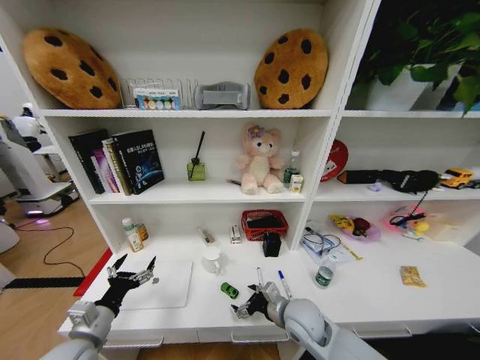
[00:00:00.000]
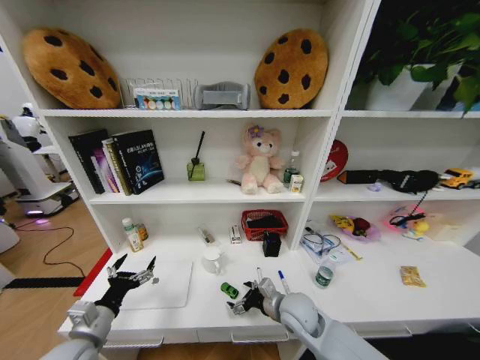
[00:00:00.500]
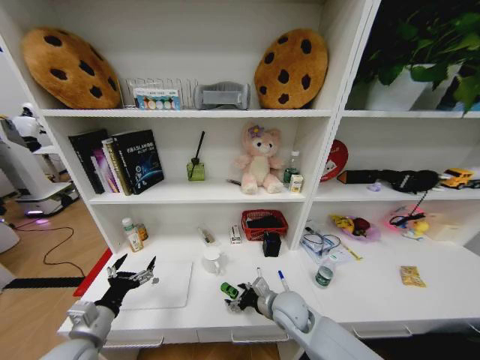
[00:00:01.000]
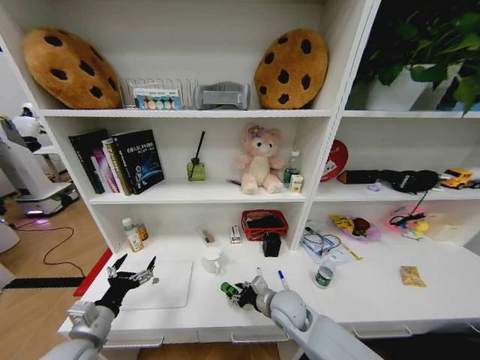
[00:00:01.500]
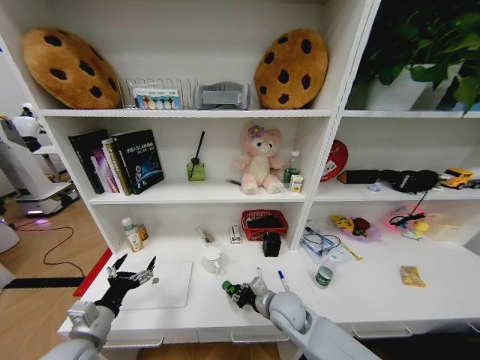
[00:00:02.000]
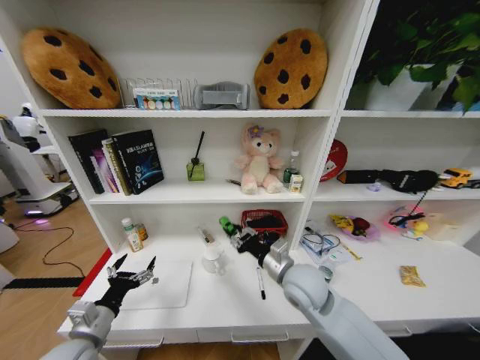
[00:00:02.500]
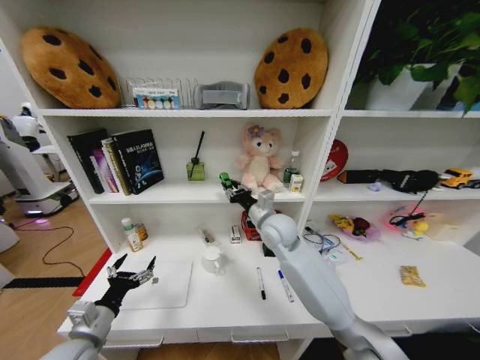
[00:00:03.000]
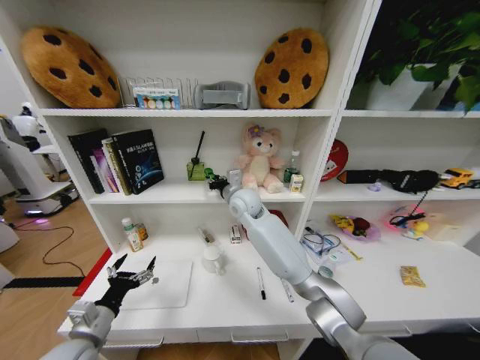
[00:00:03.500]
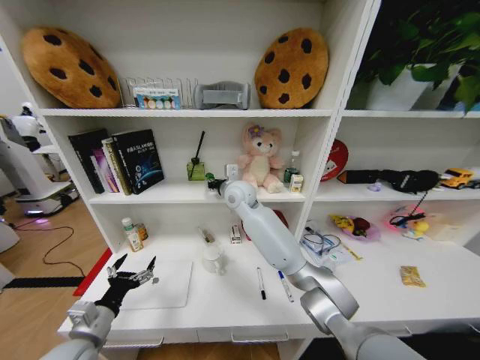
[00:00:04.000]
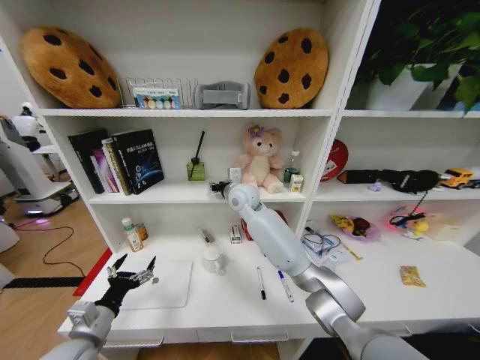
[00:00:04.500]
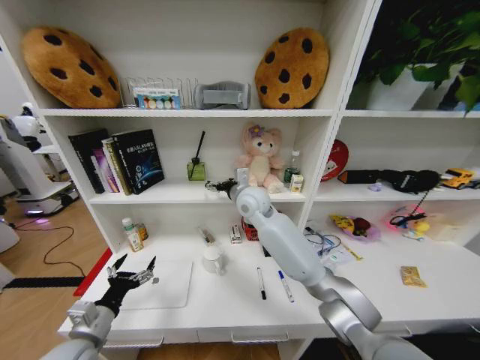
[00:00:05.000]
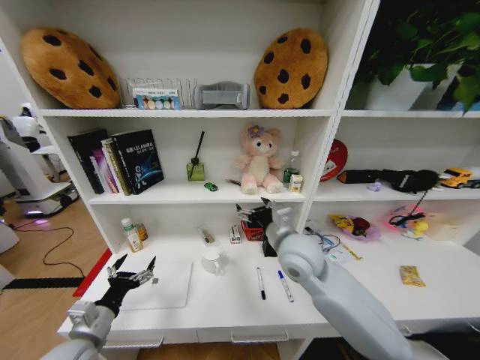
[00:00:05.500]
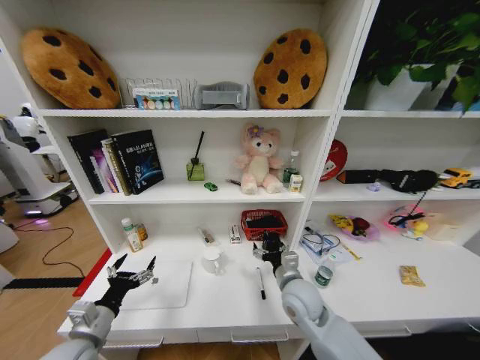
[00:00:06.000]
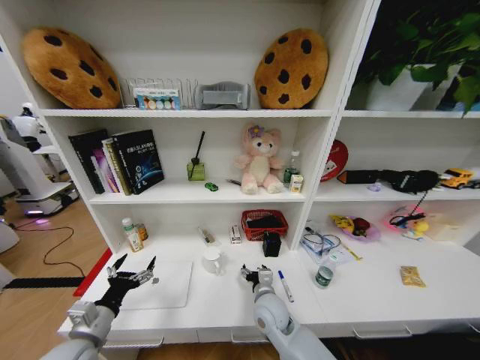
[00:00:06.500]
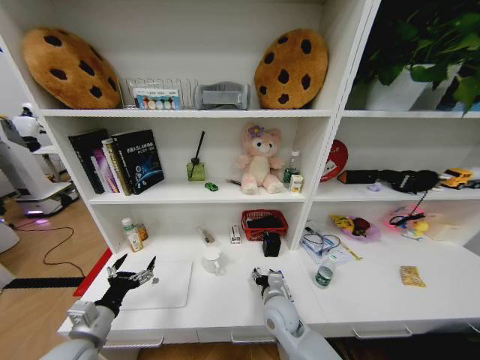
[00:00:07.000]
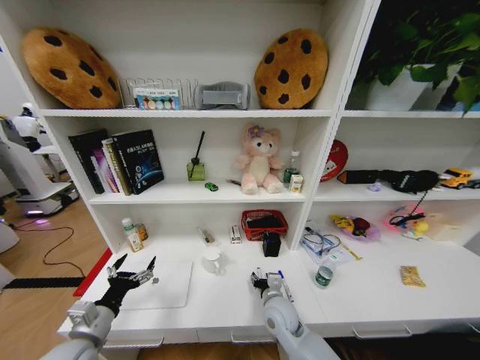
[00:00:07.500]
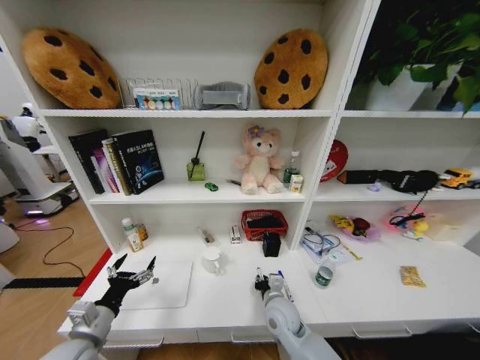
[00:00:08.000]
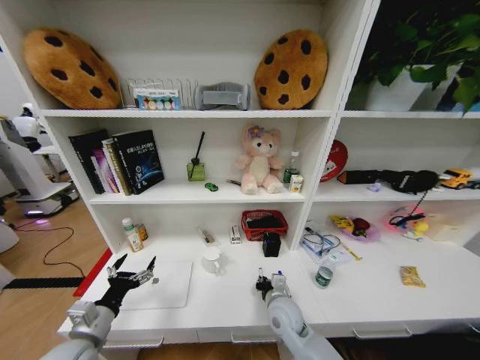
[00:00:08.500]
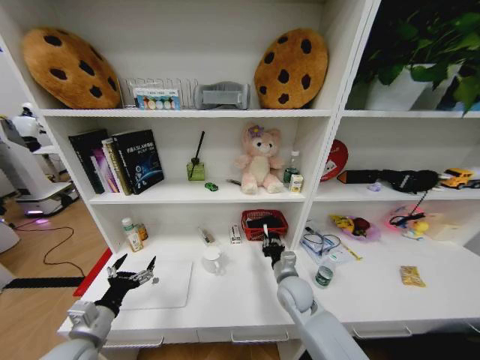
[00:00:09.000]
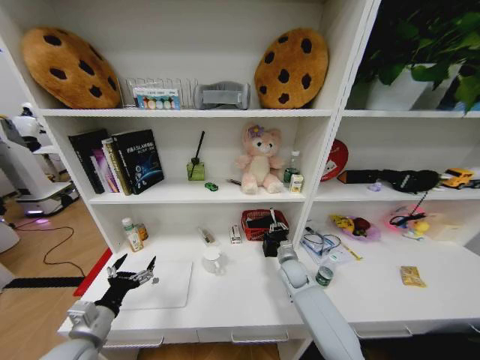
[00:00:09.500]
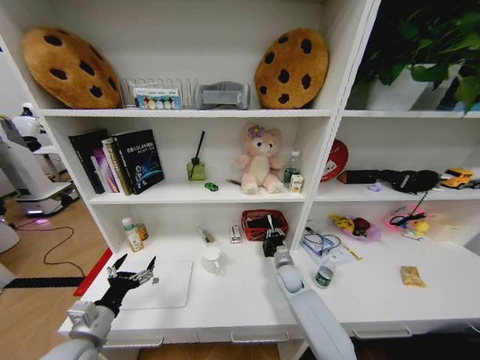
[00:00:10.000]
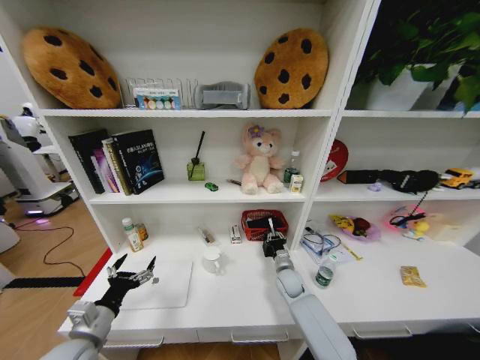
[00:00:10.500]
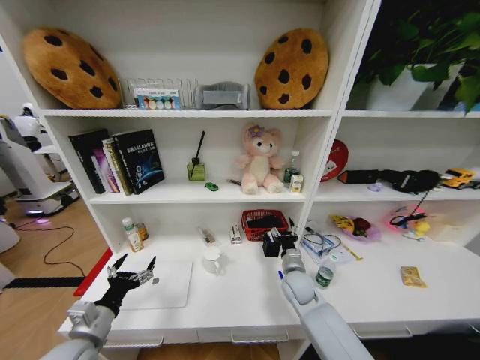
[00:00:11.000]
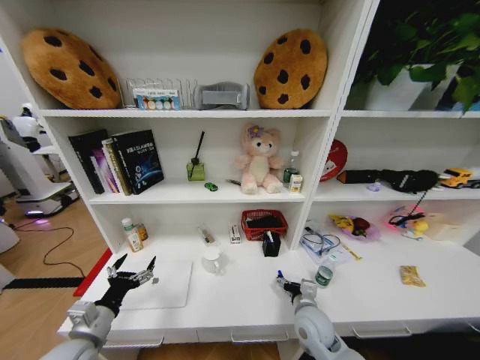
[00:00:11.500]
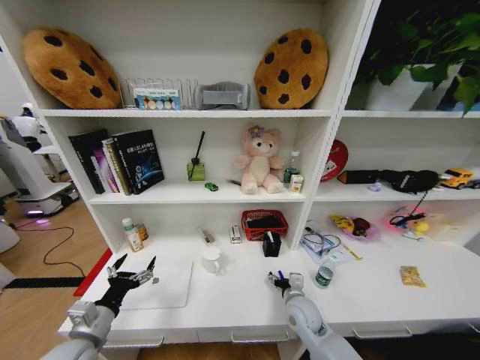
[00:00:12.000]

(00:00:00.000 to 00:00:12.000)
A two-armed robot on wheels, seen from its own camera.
Task of the whole recording: Organize the objects on the table.
00:00:00.000 - 00:00:02.000: The right gripper closes.
00:00:02.000 - 00:00:04.000: The right gripper shifts roughly 35 cm upward, forward and to the left.
00:00:04.000 - 00:00:06.000: The right gripper moves backward, downward and to the right, some 30 cm, and opens.
00:00:06.000 - 00:00:08.000: The right gripper moves downward, about 10 cm, and closes its fingers.
00:00:08.000 - 00:00:10.000: The right gripper moves forward and to the right, roughly 15 cm.
00:00:10.000 - 00:00:12.000: The right gripper heads backward, covering roughly 15 cm, and opens.

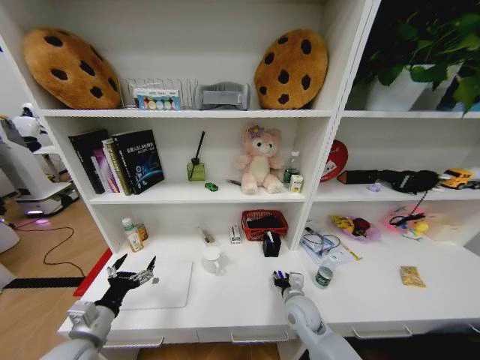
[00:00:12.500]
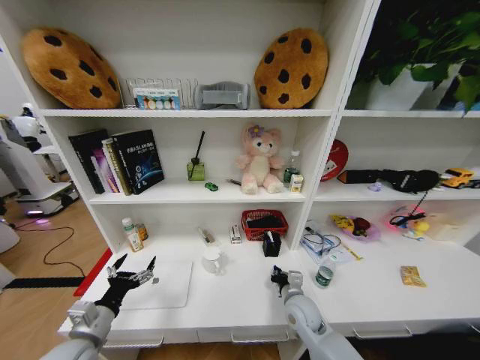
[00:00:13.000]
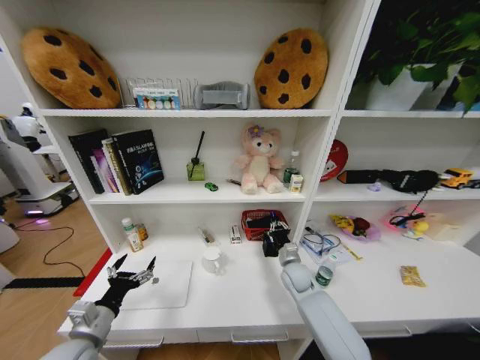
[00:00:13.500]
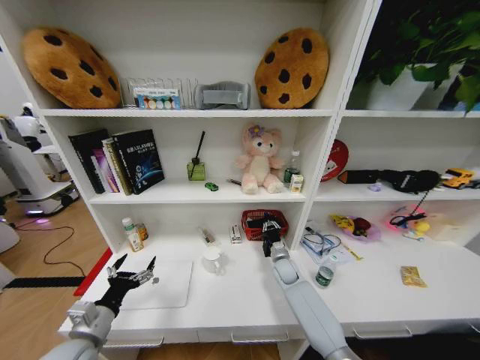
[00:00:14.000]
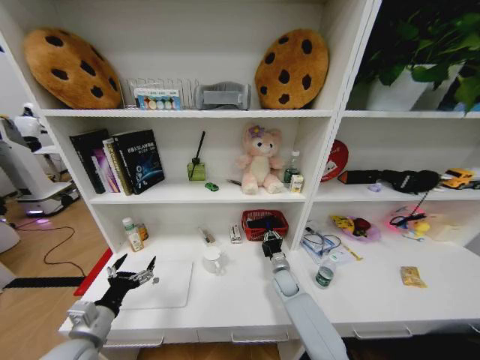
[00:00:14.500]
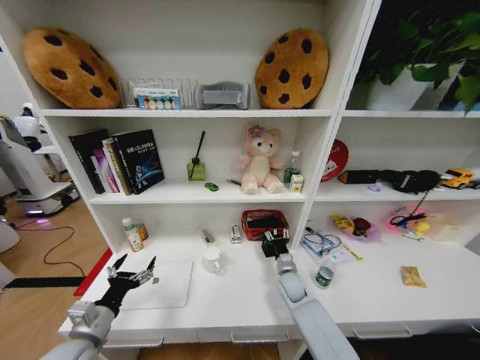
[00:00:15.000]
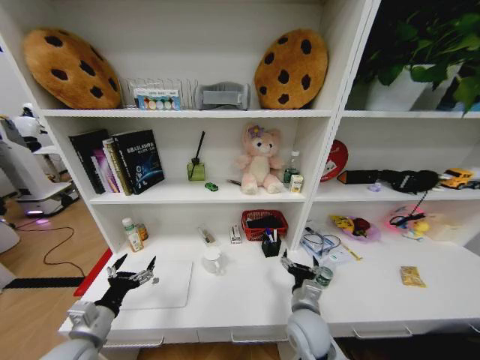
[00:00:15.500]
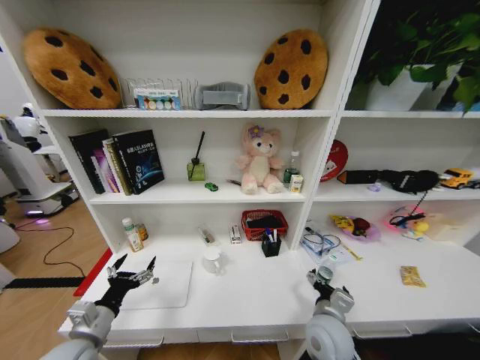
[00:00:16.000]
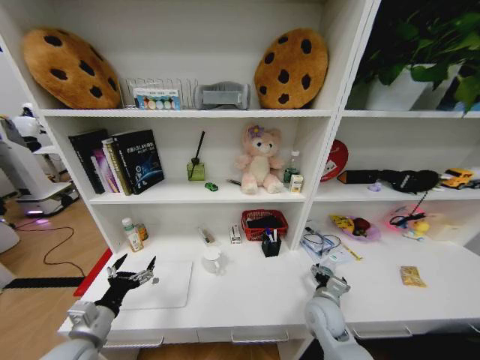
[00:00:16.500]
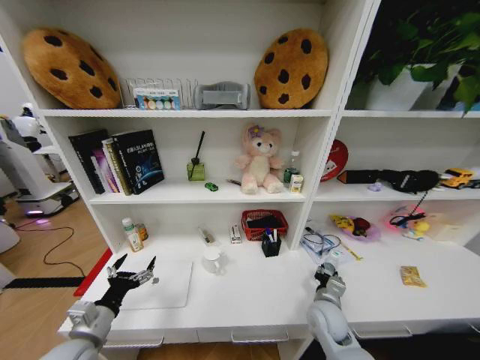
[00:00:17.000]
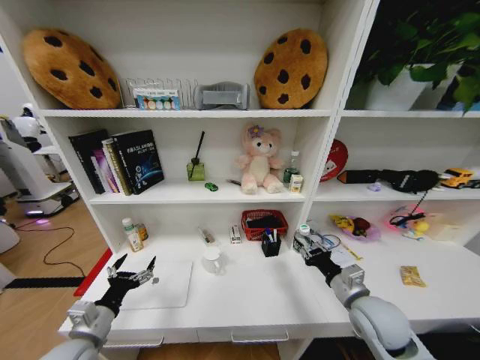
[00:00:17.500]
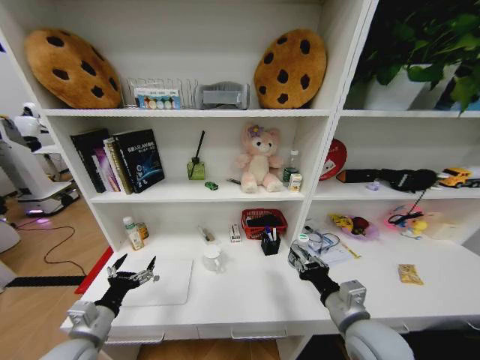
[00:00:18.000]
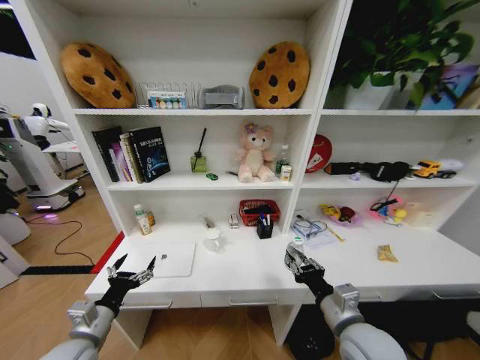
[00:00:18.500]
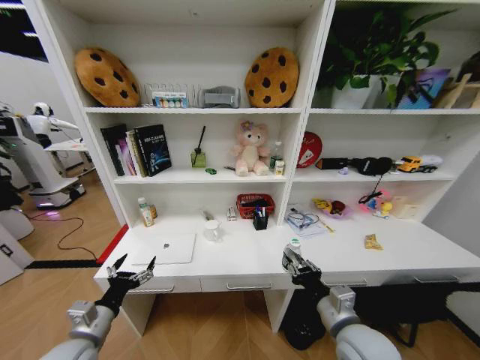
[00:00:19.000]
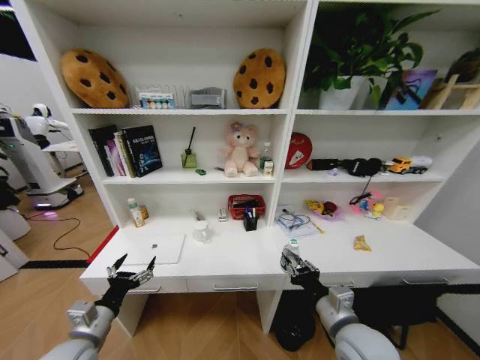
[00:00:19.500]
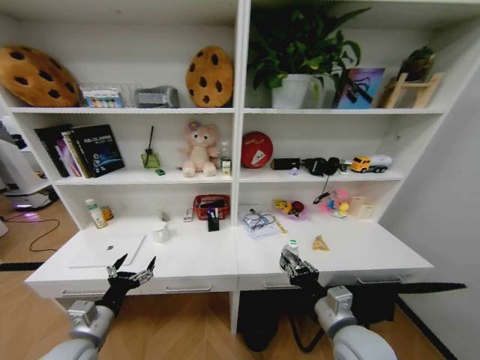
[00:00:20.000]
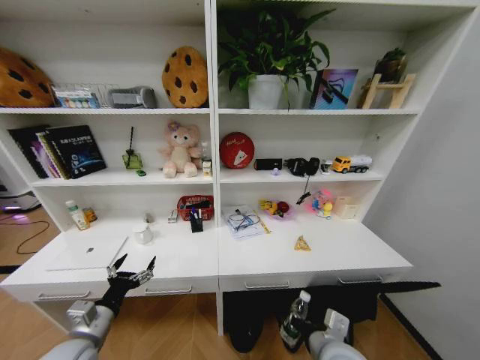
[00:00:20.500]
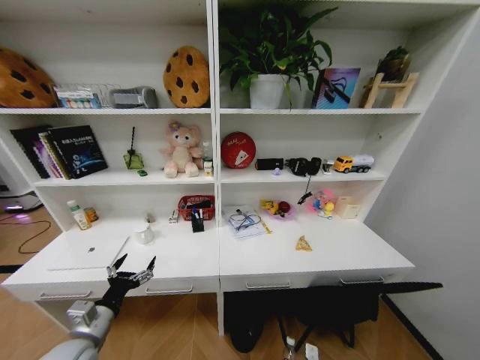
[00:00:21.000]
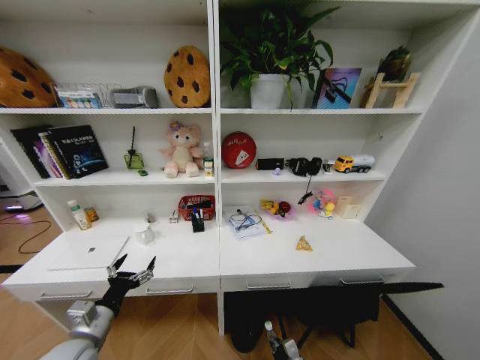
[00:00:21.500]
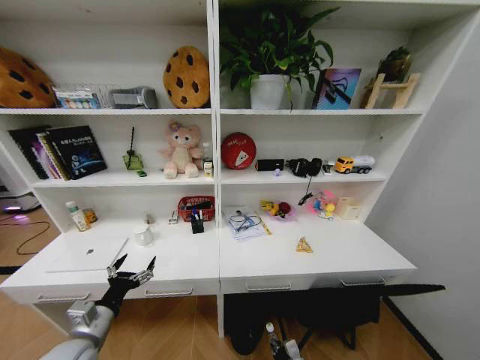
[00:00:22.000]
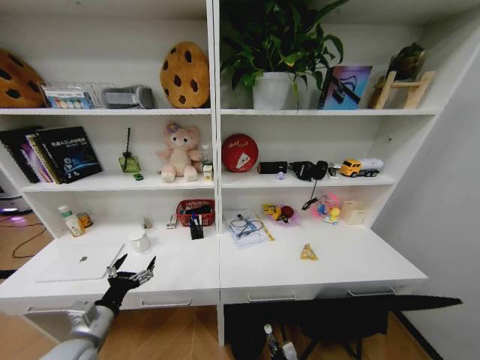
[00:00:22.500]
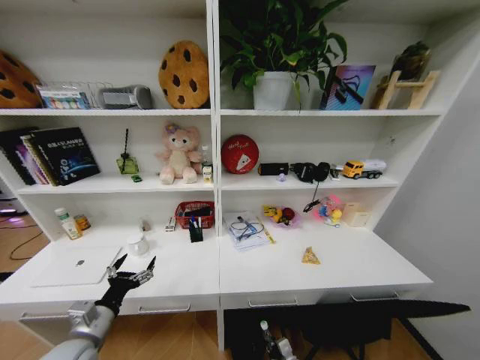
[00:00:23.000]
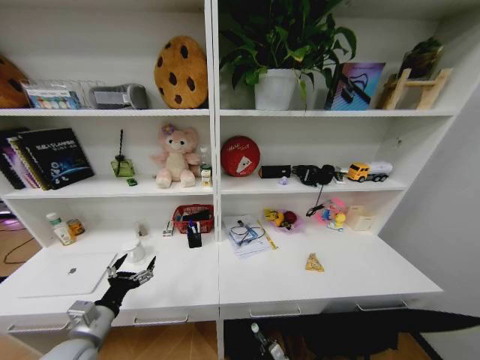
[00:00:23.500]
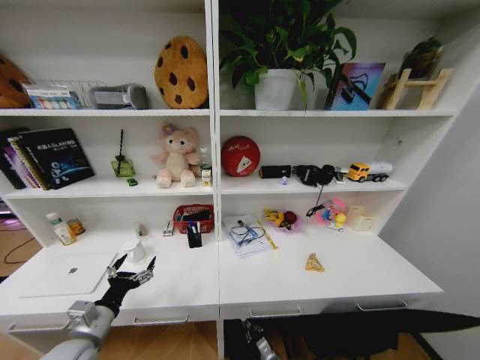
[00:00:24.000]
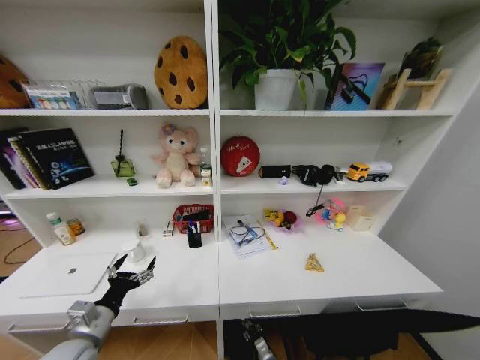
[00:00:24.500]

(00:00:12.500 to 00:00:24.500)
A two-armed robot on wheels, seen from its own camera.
Task of the whole recording: Organize the objects on the table.
00:00:12.500 - 00:00:14.500: The right gripper goes roughly 15 cm forward and downward, and closes its fingers.
00:00:14.500 - 00:00:16.500: The right gripper heads backward and upward, covering roughly 15 cm, and opens up.
00:00:16.500 - 00:00:18.500: The right gripper travels upward and backward by roughly 15 cm, and closes.
00:00:18.500 - 00:00:20.500: The right gripper shifts by about 5 cm.
00:00:20.500 - 00:00:22.500: The right gripper moves downward, some 35 cm.
00:00:22.500 - 00:00:24.500: The right gripper goes some 10 cm to the left and downward.

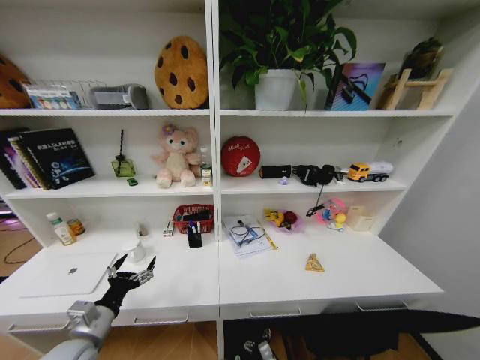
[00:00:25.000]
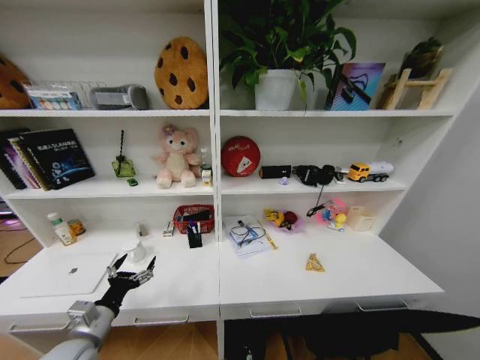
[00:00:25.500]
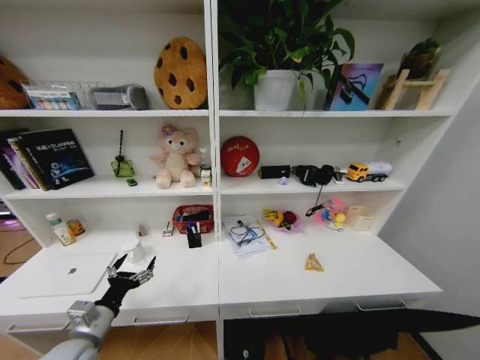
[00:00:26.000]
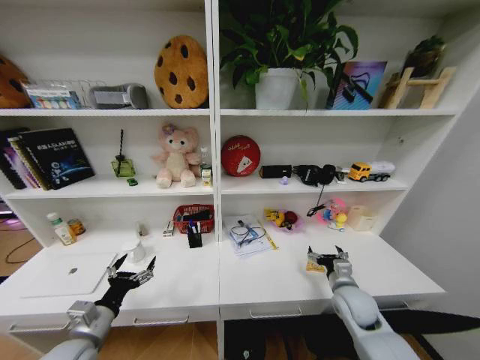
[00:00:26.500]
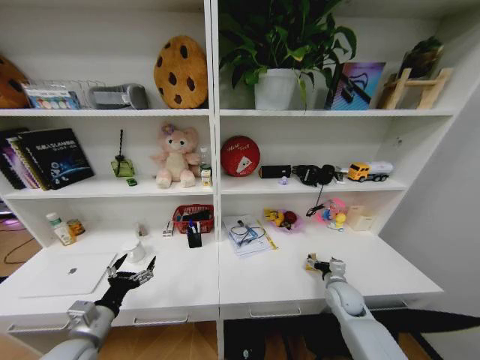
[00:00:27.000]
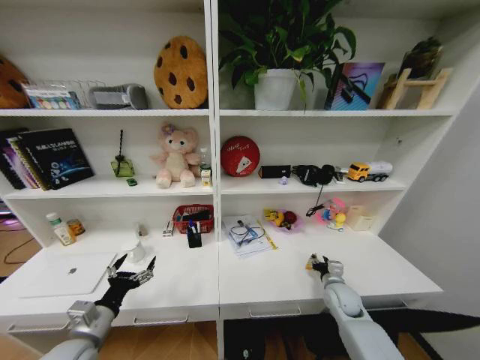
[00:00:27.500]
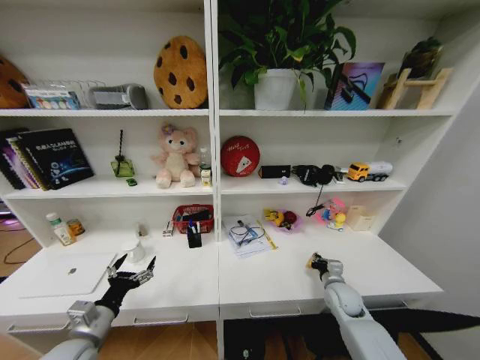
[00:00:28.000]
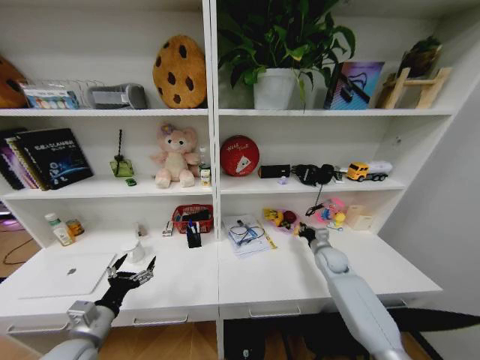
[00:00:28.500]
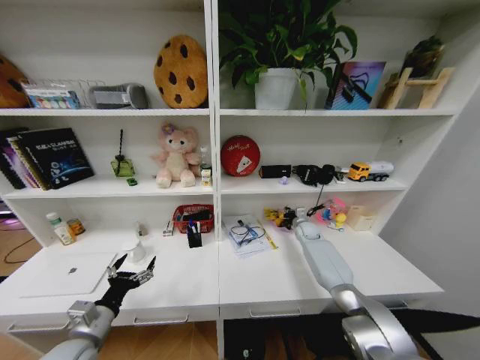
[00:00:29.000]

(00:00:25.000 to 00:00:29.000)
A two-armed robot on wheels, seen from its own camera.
Task of the whole recording: Organize the objects on the table.
00:00:25.000 - 00:00:27.000: The right gripper travels upward, to the right and forward by approximately 40 cm.
00:00:27.000 - 00:00:29.000: The right gripper moves forward, some 25 cm, and closes its fingers.
